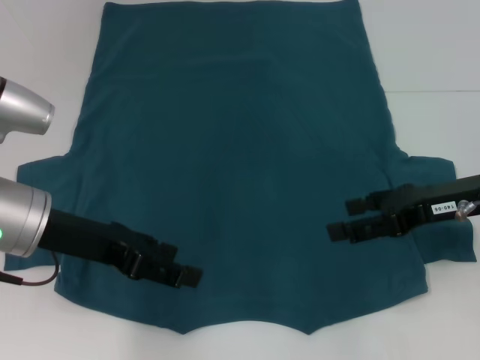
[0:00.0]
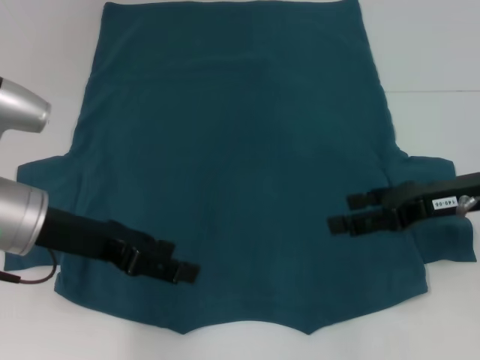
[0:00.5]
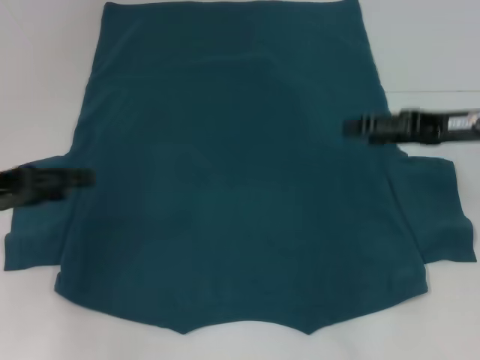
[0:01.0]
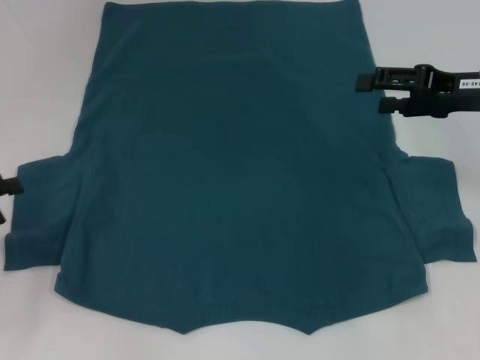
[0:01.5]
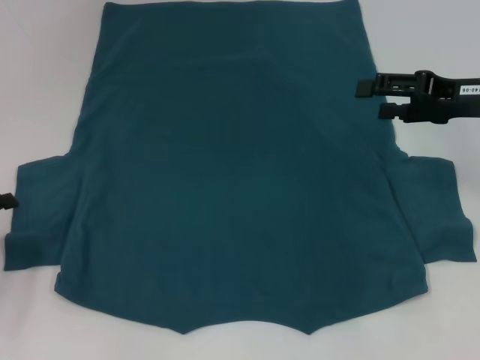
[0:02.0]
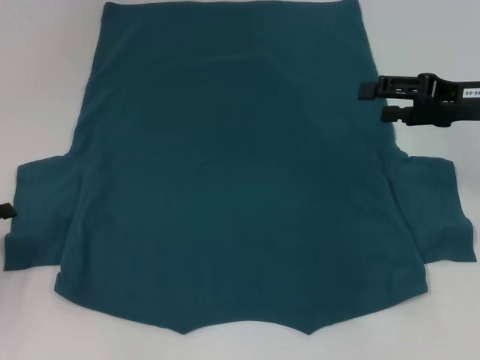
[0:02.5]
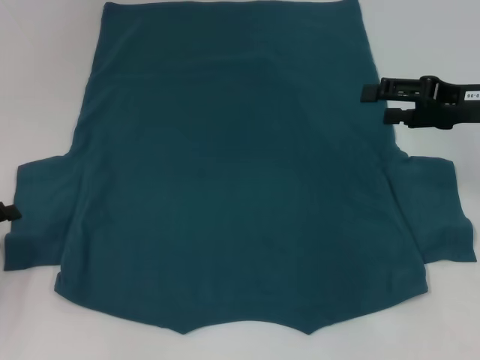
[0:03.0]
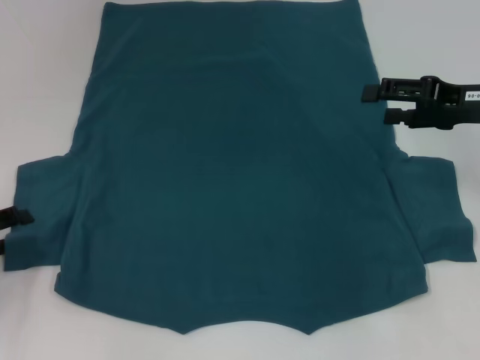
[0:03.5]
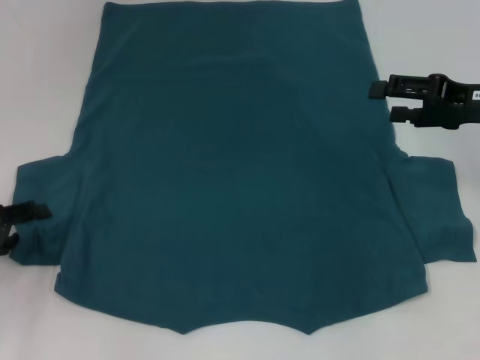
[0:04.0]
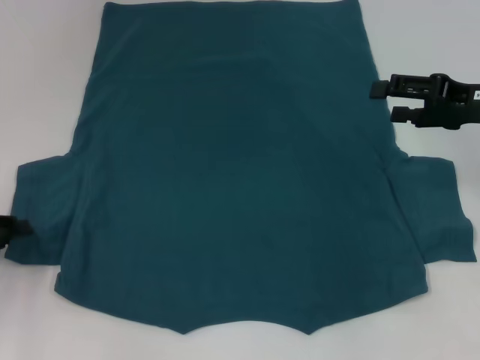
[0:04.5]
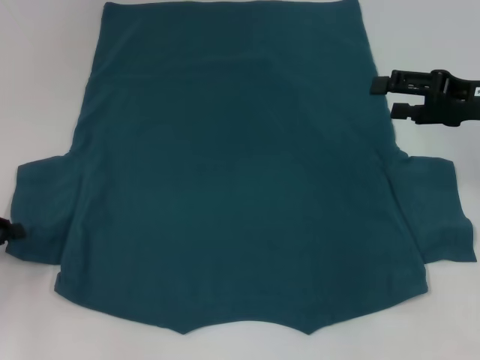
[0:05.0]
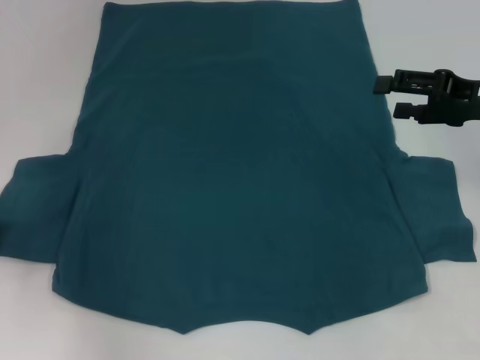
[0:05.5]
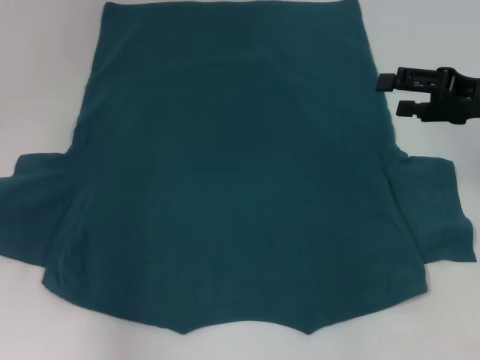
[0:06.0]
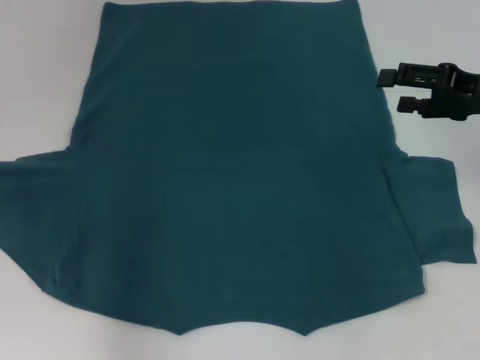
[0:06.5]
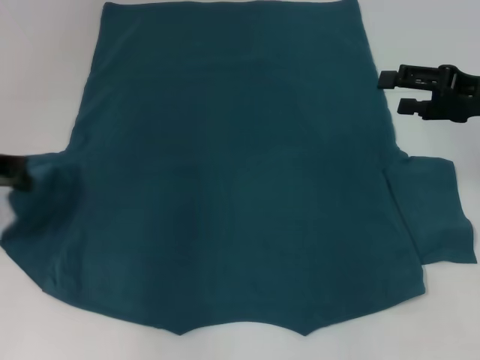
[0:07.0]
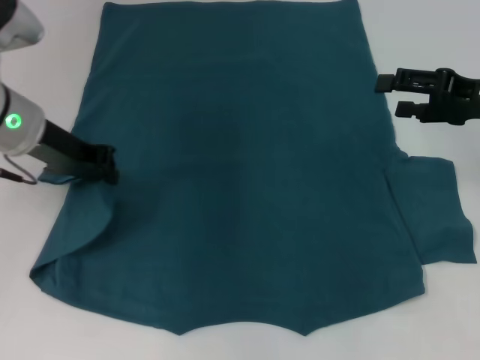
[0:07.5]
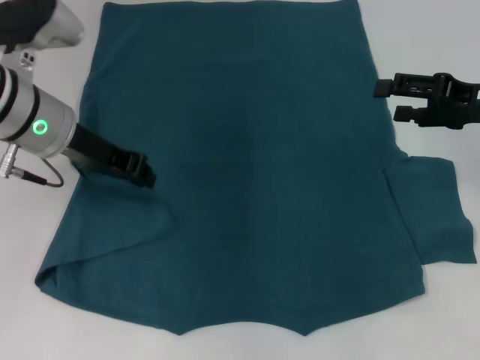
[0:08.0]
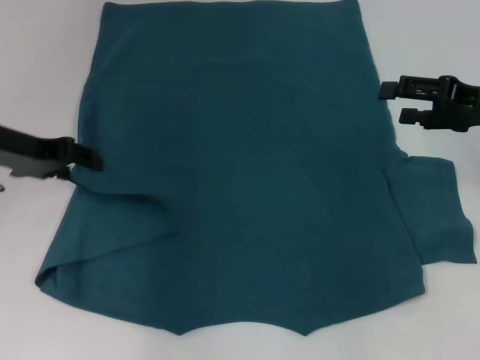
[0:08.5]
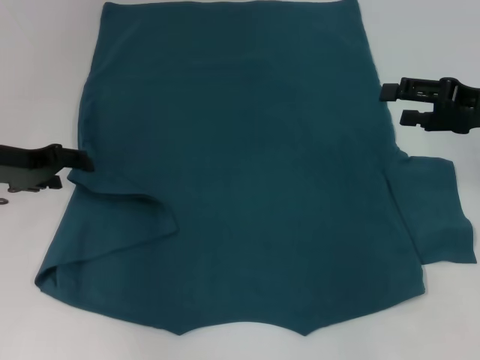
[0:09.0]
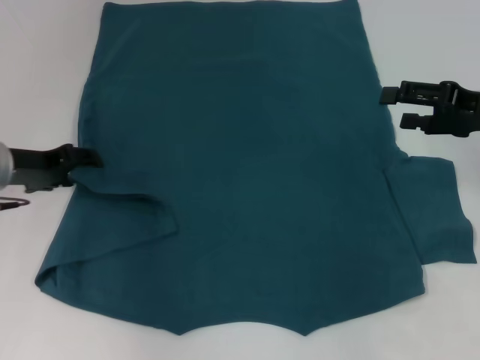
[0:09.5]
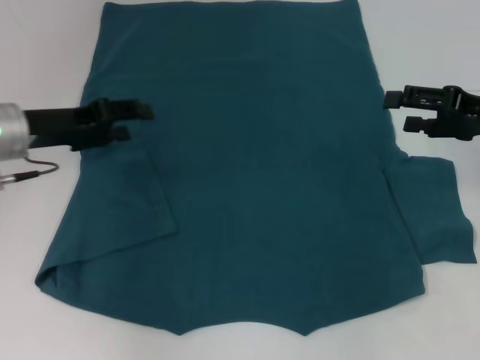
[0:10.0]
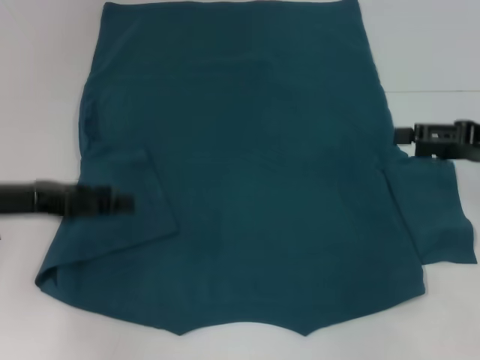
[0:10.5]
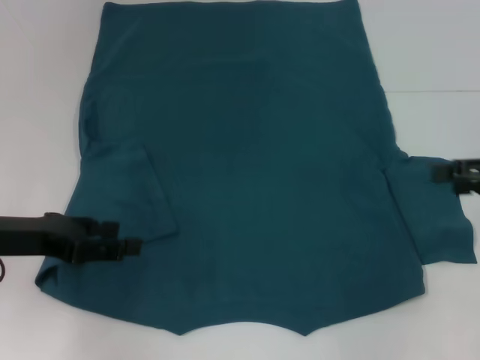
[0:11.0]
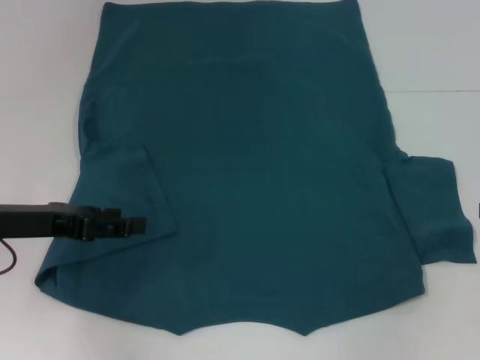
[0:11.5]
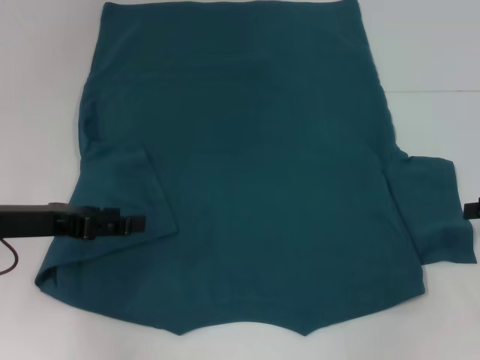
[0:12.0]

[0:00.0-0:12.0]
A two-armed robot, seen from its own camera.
Step, 0:00.0 to 0:10.0: Fold the bottom left sleeve with your left hand.
0:00.0 to 0:02.0: The left gripper goes roughly 20 cm to the left and downward. Meanwhile the right gripper travels forward by approximately 5 cm.
0:02.0 to 0:04.0: There are only small adjustments of the grippers.
0:04.0 to 0:06.0: The left gripper moves upward, roughly 5 cm, and closes up.
0:06.0 to 0:08.0: The left gripper goes some 15 cm to the right.
0:08.0 to 0:10.0: The left gripper goes about 5 cm to the left, and opens up.
0:10.0 to 0:12.0: The right gripper heads to the right and backward, covering about 10 cm. Meanwhile the left gripper moves backward, approximately 10 cm.

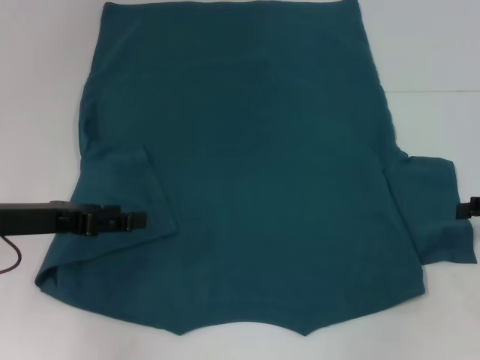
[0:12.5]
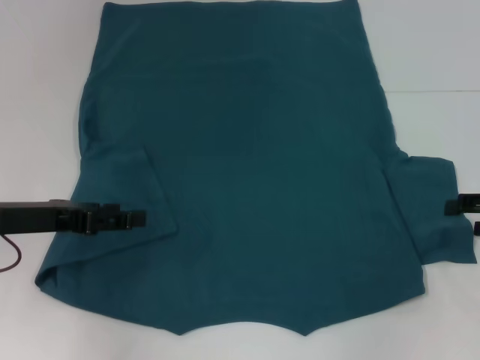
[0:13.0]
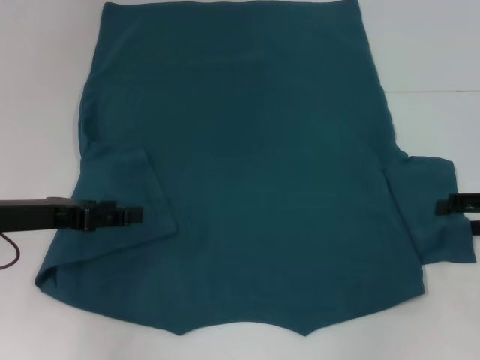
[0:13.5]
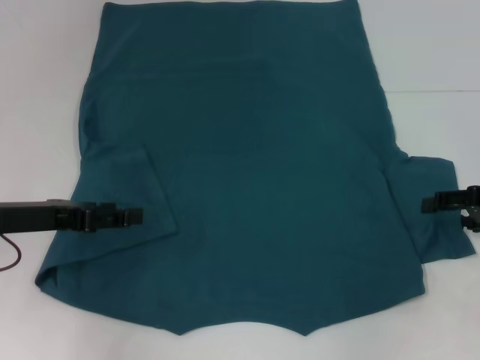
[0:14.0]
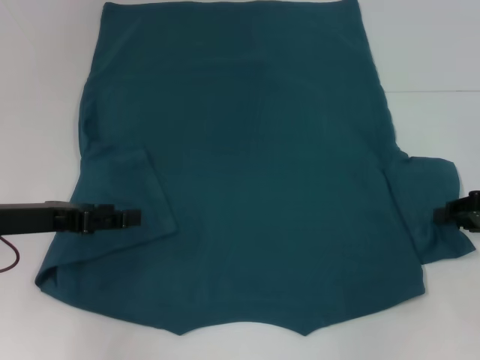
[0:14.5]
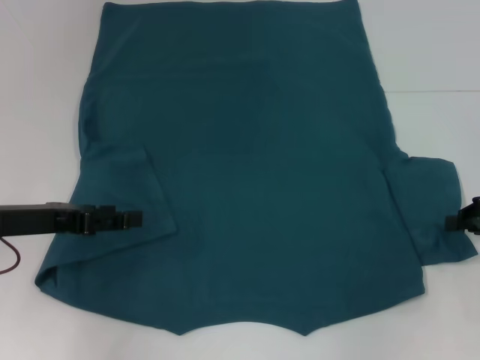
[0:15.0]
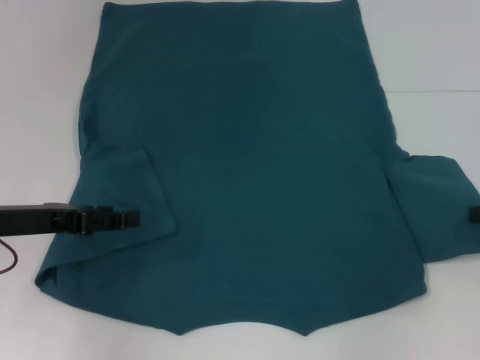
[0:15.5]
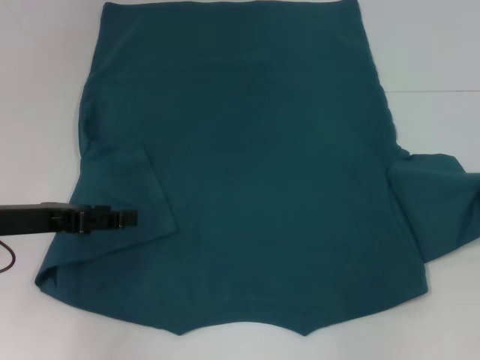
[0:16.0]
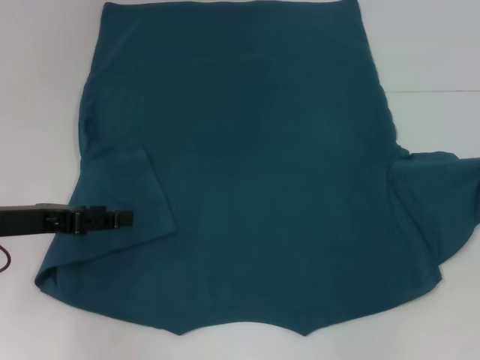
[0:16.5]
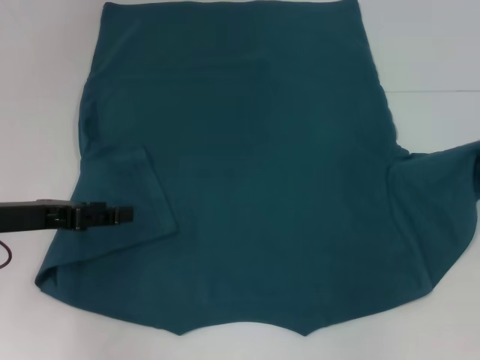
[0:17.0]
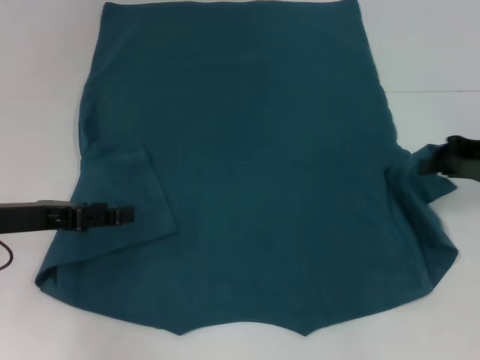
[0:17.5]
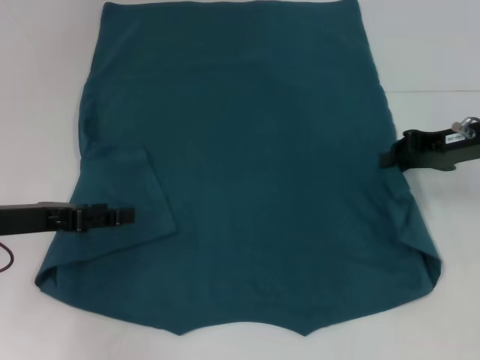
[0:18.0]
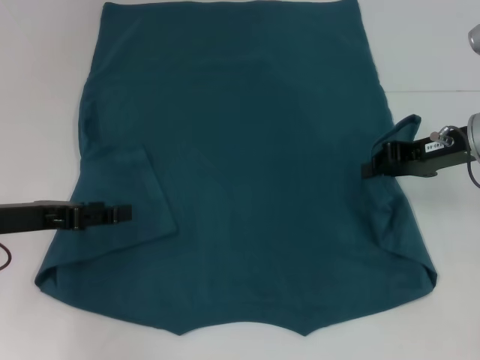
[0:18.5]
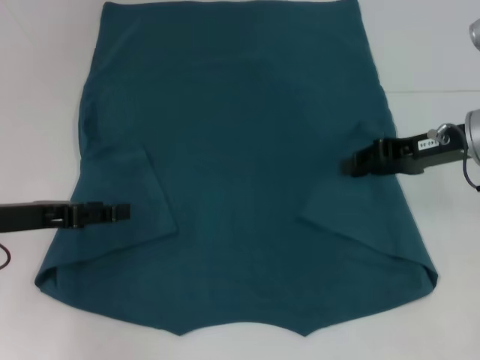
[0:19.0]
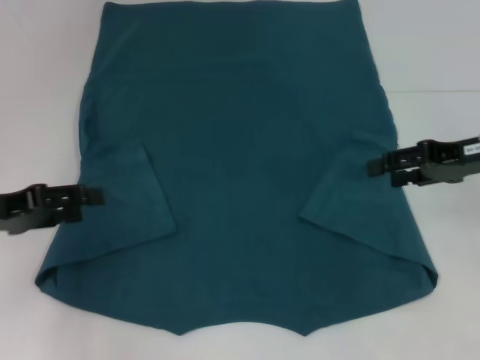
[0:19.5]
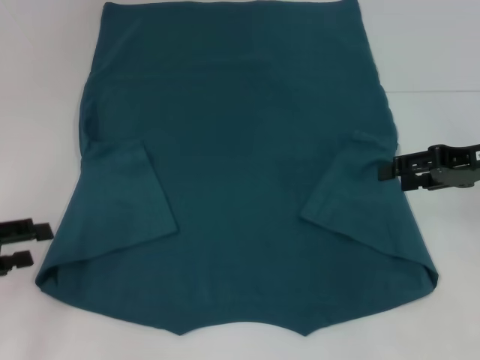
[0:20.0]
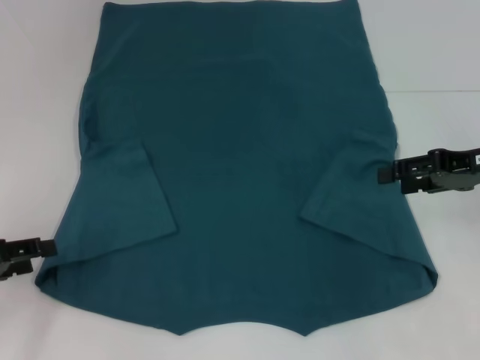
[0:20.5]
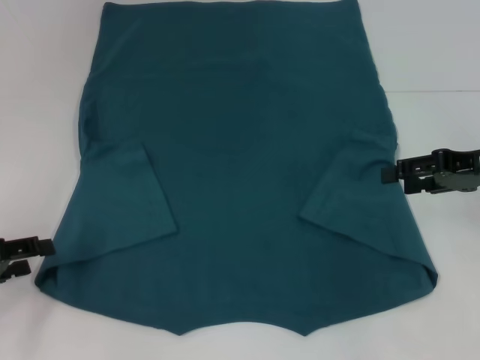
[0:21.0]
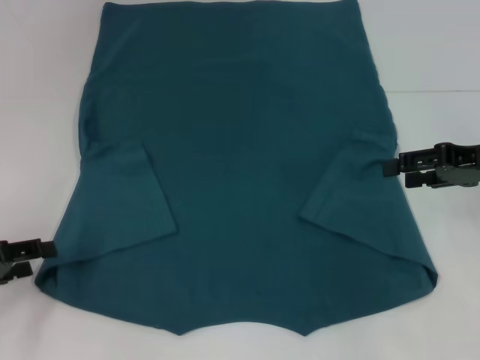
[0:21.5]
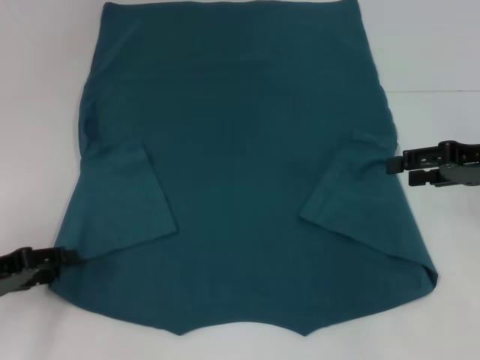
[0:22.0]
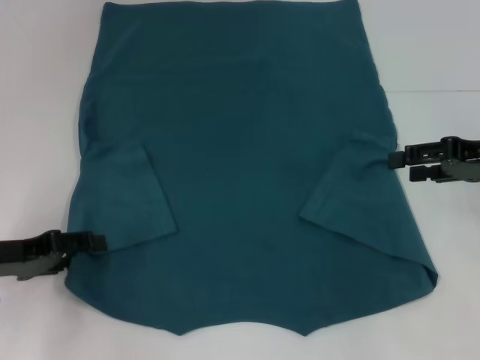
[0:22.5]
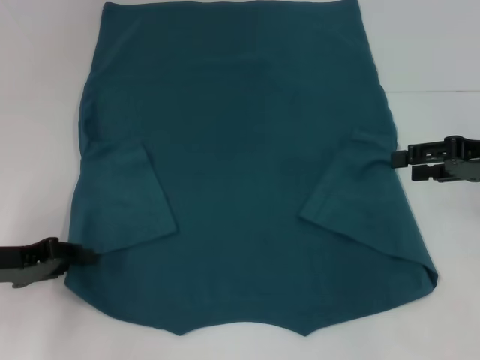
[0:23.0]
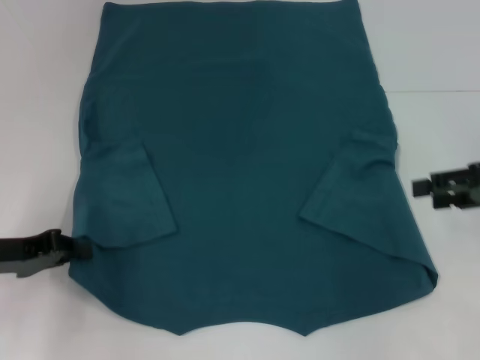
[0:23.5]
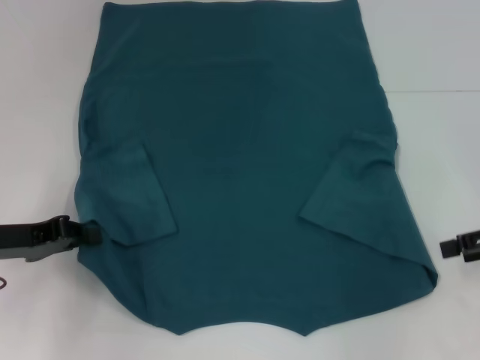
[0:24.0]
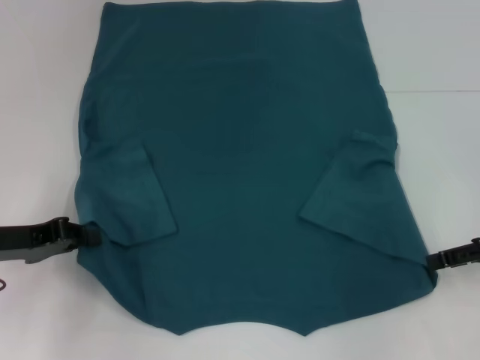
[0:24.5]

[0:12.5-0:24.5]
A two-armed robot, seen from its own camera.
Step, 0:12.5 to 0:19.0: Fold the bottom right sleeve to the right.
Step, 0:19.5 to 0:22.5: Grab the bottom left corner with your left hand.
0:12.5 to 0:14.5: The right gripper closes.
0:14.5 to 0:16.5: The right gripper ends up about 5 cm from where it was, and closes up.
0:16.5 to 0:18.5: The right gripper goes about 15 cm to the left.
0:18.5 to 0:20.5: The left gripper moves to the left, roughly 5 cm. Meanwhile the right gripper ends up some 5 cm from where it was, and opens.
0:20.5 to 0:22.5: The left gripper changes place by roughly 5 cm.
0:22.5 to 0:24.5: The right gripper changes place by some 5 cm. The left gripper closes its fingers.

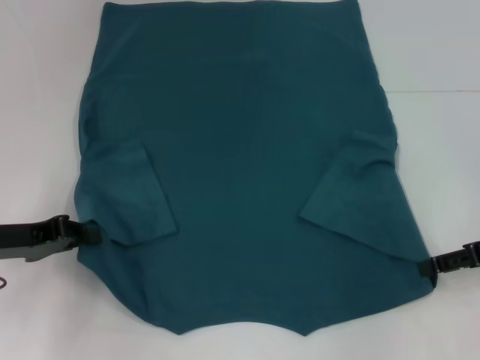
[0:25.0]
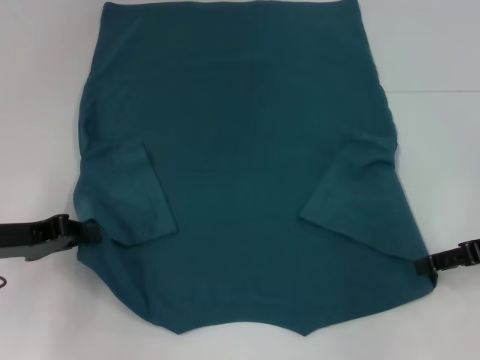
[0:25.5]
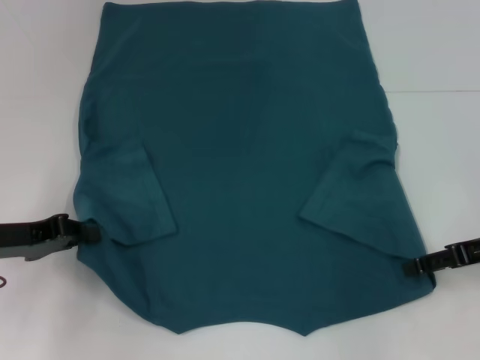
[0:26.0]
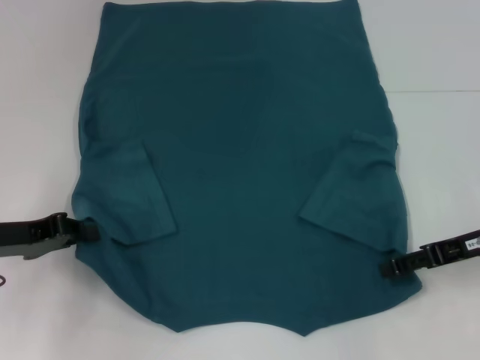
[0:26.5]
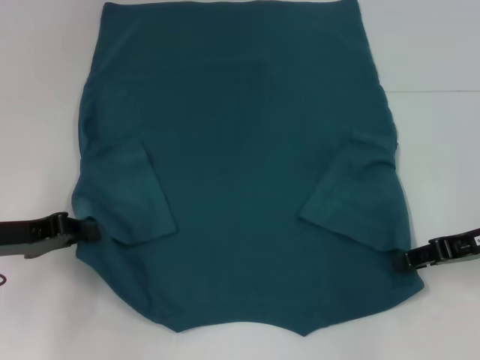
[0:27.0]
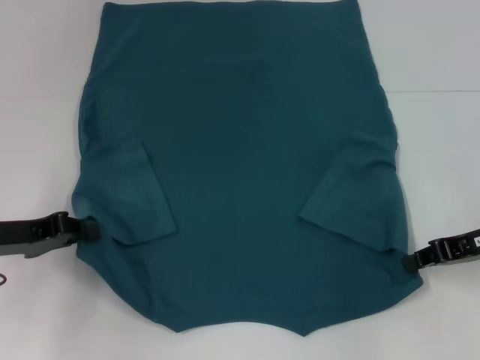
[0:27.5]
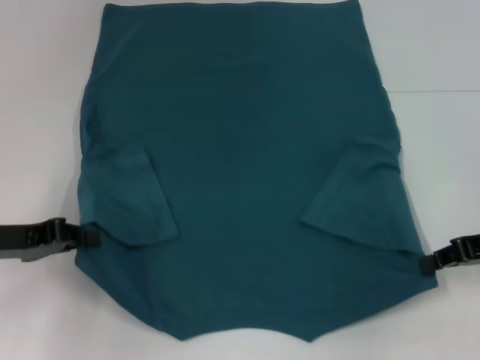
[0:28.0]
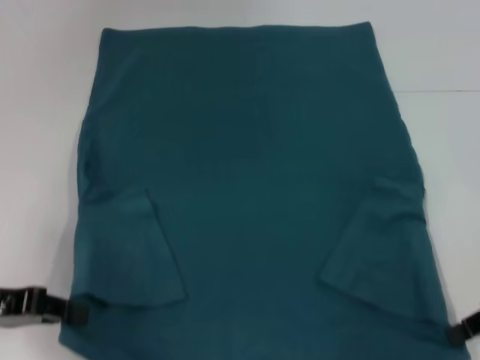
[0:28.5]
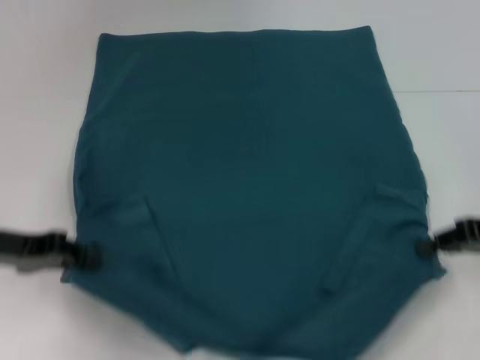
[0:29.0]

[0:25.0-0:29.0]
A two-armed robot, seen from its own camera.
Step, 0:25.0 to 0:27.5: Grab the bottom right corner with your right hand.
0:25.0 to 0:27.0: The grippers move only a little.
0:27.0 to 0:29.0: The right gripper closes up.
